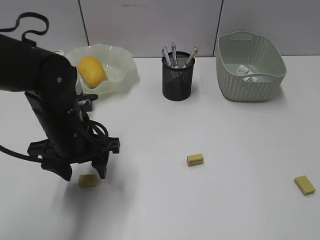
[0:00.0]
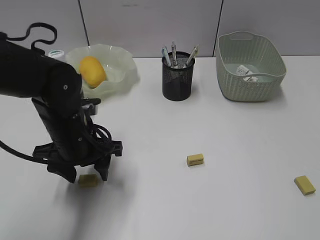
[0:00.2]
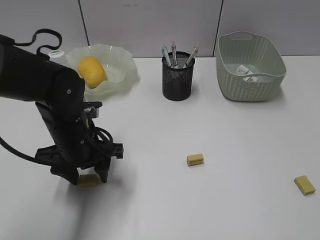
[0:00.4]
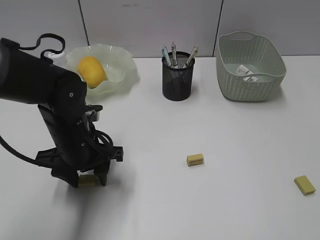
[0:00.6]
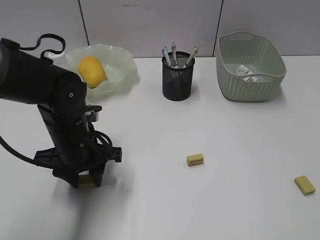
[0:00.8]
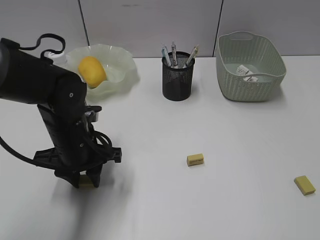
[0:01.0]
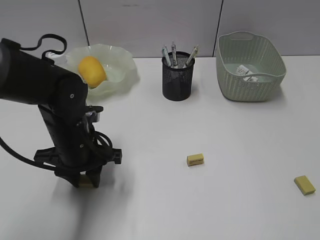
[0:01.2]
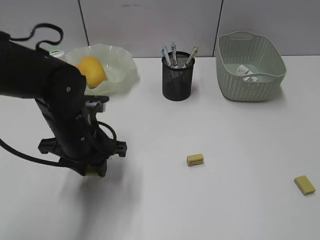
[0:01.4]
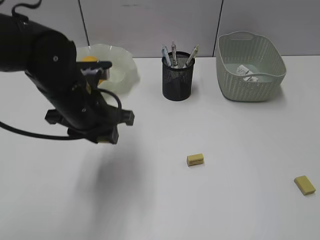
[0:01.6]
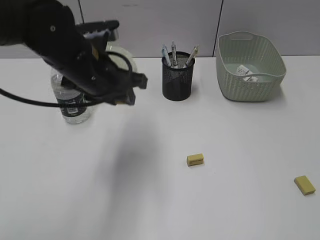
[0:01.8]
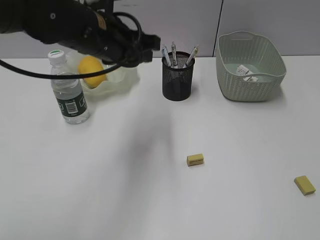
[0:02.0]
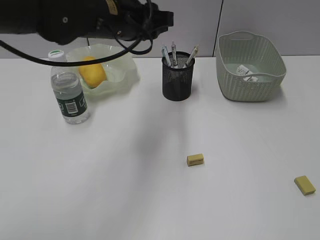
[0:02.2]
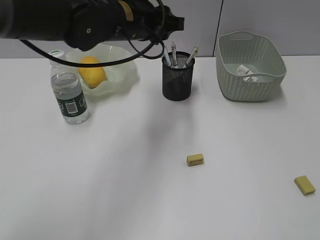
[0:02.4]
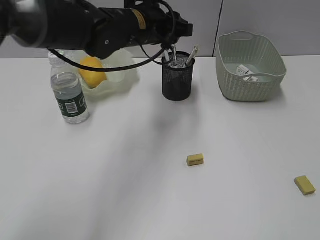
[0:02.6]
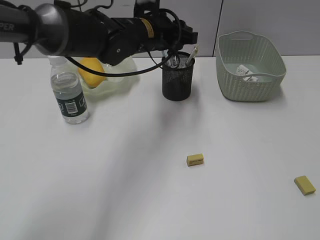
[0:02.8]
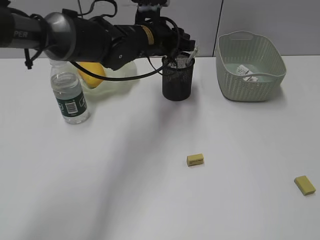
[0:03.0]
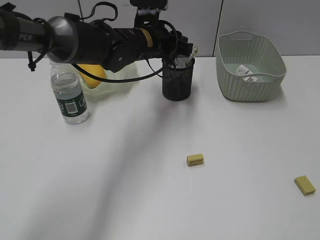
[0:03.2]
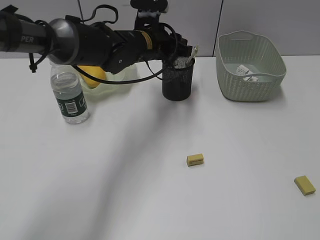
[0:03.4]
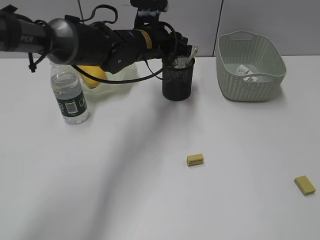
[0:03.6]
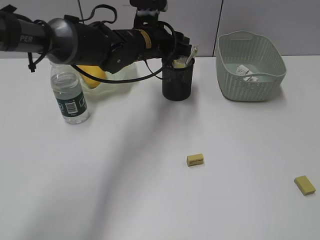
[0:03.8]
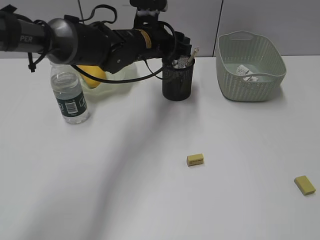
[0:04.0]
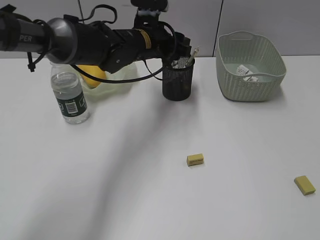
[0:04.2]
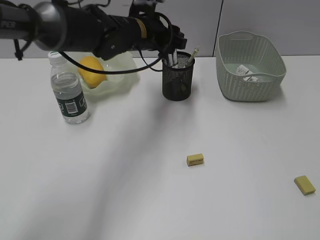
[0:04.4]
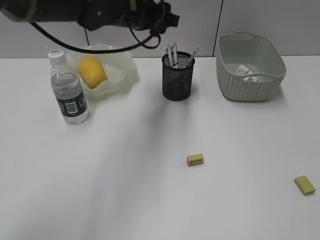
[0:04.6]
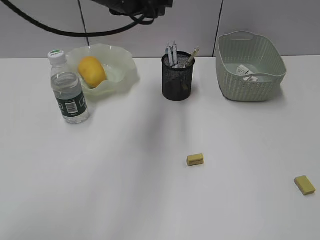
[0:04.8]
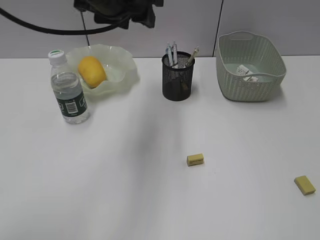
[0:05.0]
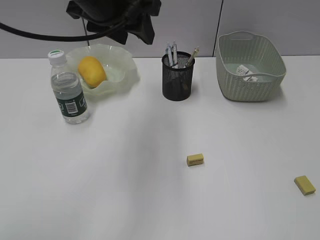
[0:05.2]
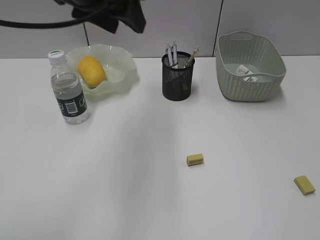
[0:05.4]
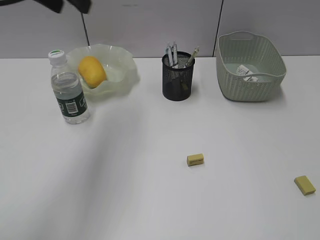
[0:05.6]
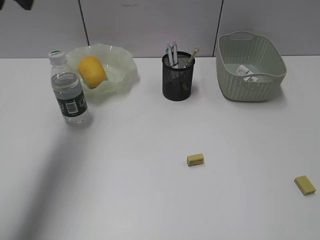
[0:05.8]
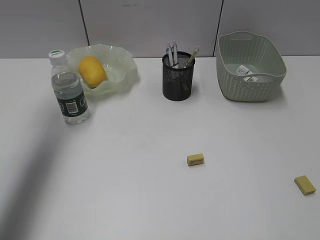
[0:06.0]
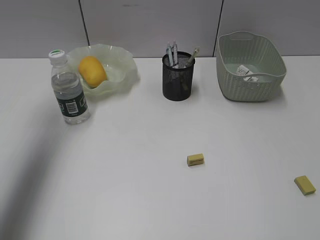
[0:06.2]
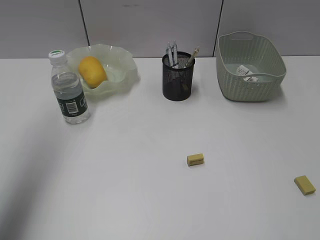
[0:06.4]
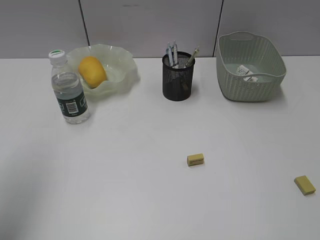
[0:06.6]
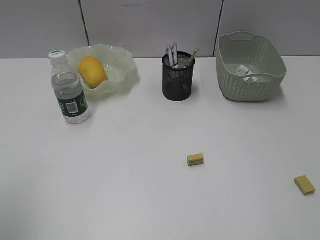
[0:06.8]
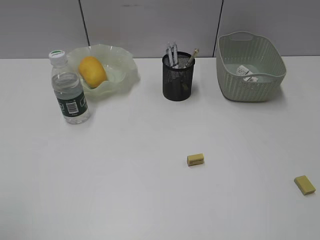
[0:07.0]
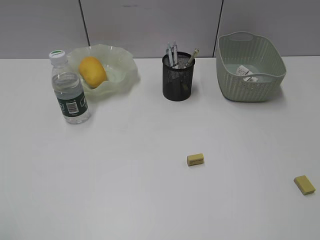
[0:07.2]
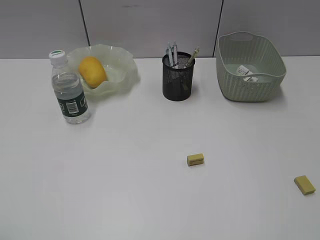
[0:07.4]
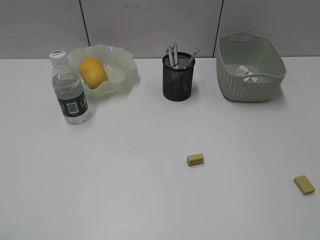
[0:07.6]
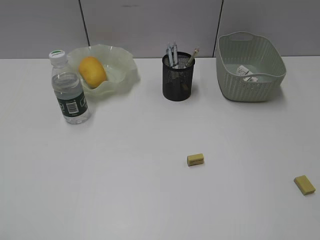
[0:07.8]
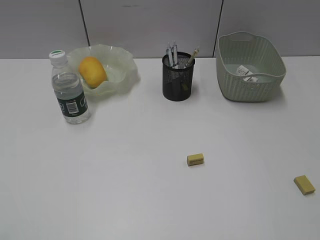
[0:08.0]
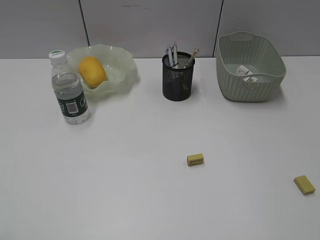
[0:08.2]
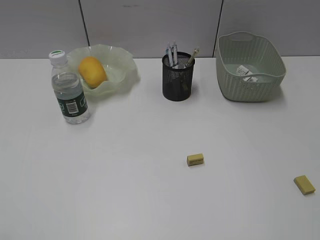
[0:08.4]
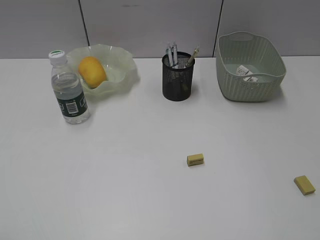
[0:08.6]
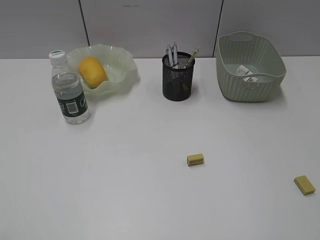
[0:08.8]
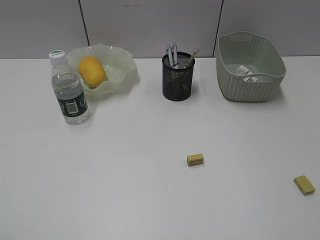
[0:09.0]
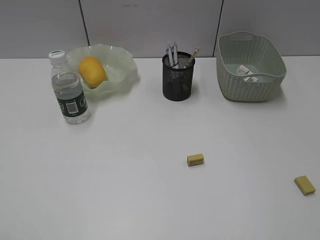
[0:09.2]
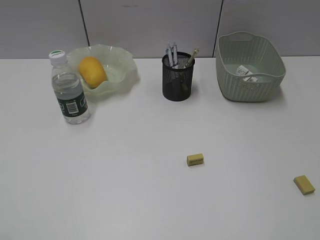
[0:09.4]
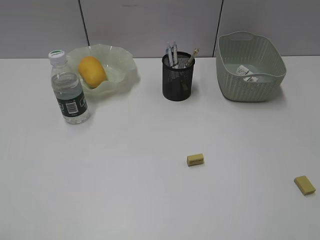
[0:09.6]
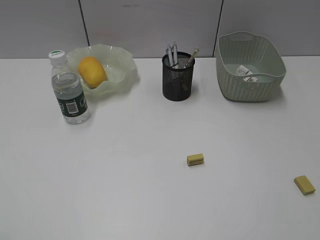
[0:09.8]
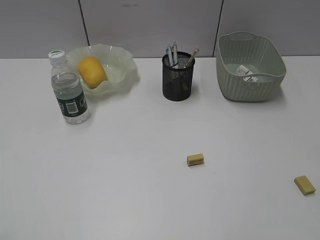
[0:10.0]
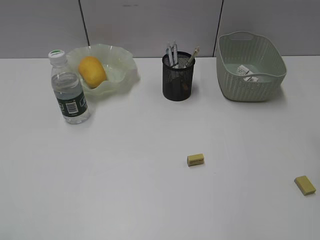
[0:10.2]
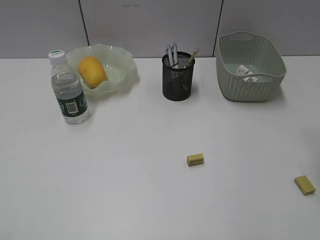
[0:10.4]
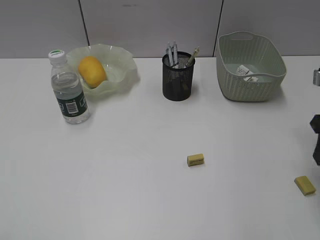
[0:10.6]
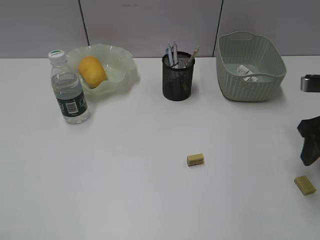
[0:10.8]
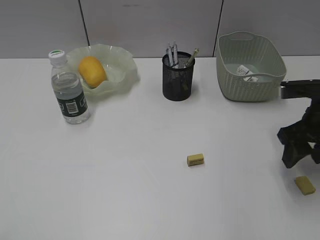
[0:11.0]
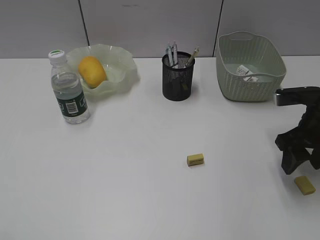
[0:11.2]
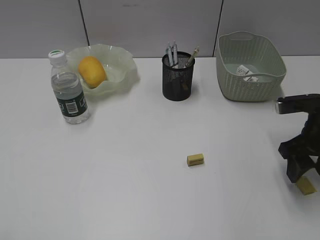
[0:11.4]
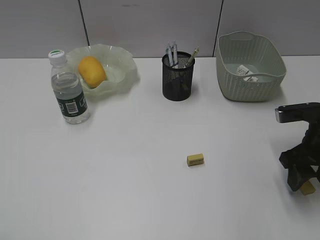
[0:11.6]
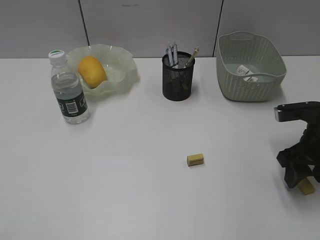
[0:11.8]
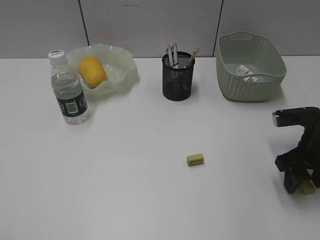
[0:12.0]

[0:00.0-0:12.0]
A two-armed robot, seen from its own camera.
Step, 0:01.2 to 0:04.2: Place the eraser in pen holder with left gripper.
0:00.0 to 0:01.6: The left gripper closes its fingers.
0:01.6 to 0:03.0: The left gripper goes about 15 cm forward and to the right.
0:03.0 to 0:04.4: The grippers make only small movements.
0:04.4 to 0:06.0: The left gripper travels to the left and upward by some 30 cm.
0:06.0 to 0:07.6: The left gripper goes some 35 cm backward.
0:07.6 to 0:09.0: The two grippers keep their place.
0:10.4 to 0:12.0: The right gripper heads downward, covering approximately 15 cm.

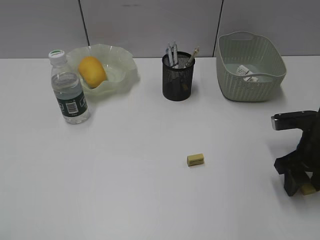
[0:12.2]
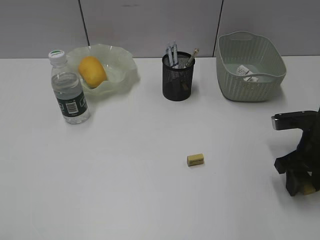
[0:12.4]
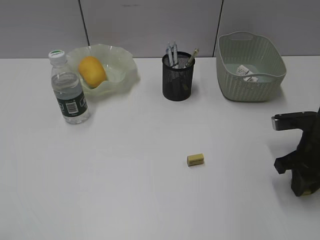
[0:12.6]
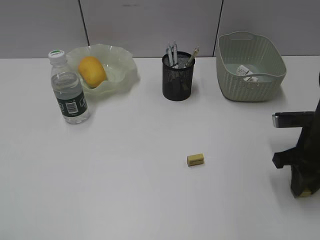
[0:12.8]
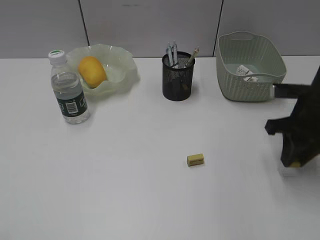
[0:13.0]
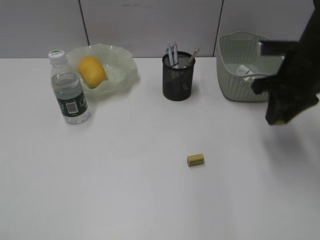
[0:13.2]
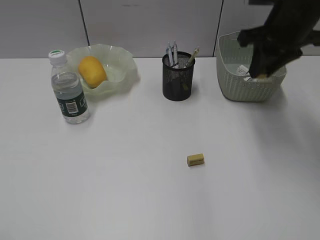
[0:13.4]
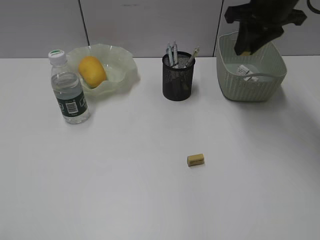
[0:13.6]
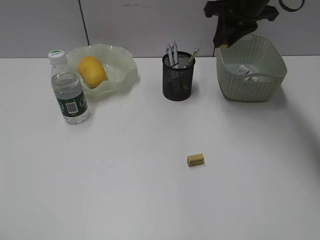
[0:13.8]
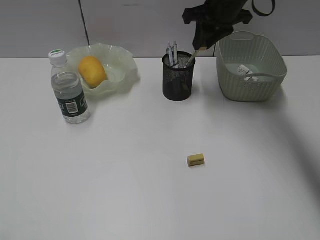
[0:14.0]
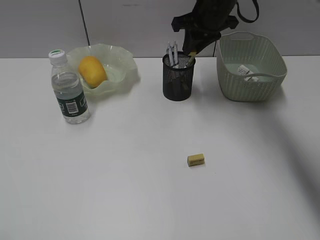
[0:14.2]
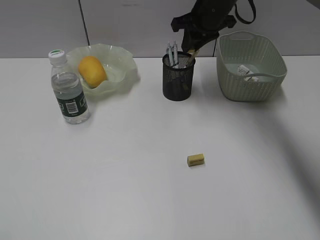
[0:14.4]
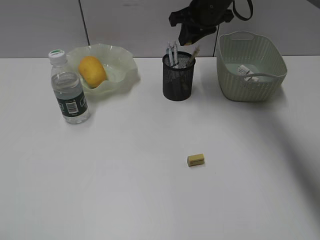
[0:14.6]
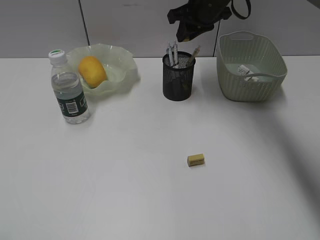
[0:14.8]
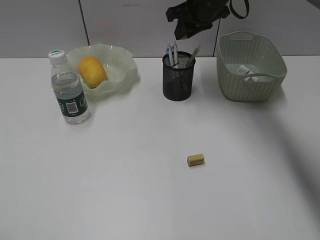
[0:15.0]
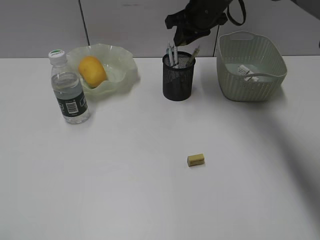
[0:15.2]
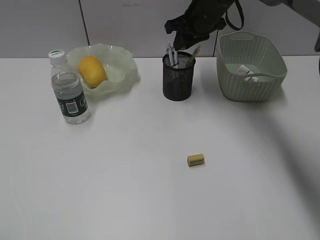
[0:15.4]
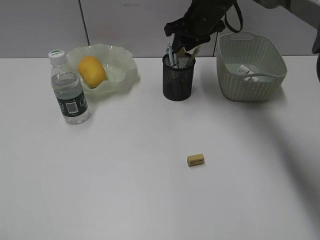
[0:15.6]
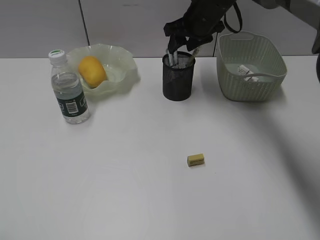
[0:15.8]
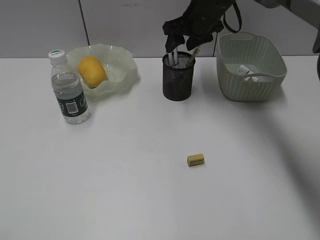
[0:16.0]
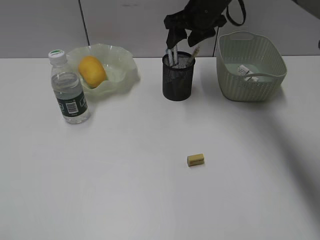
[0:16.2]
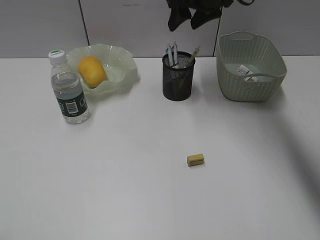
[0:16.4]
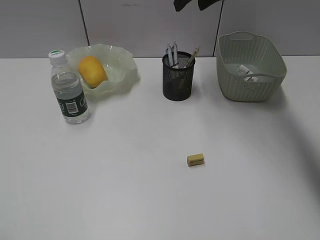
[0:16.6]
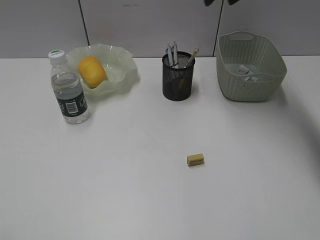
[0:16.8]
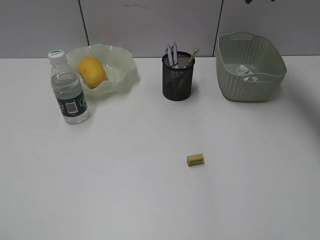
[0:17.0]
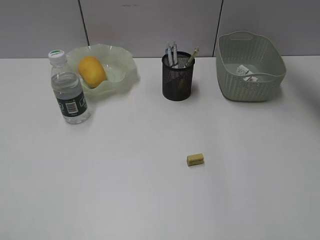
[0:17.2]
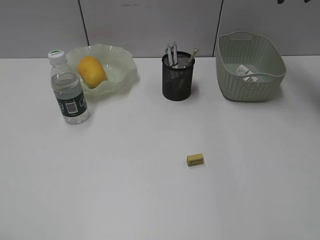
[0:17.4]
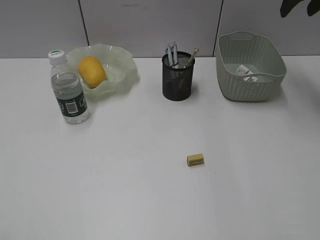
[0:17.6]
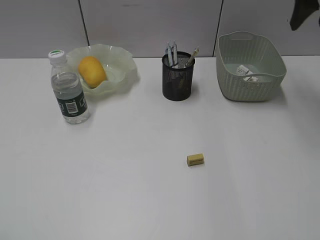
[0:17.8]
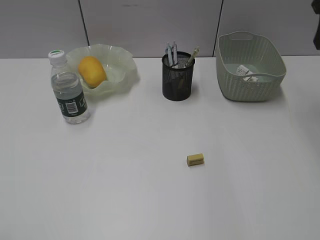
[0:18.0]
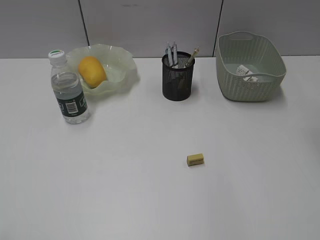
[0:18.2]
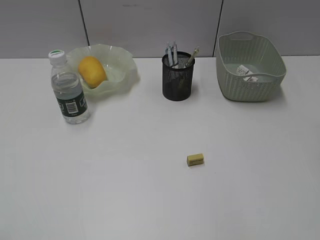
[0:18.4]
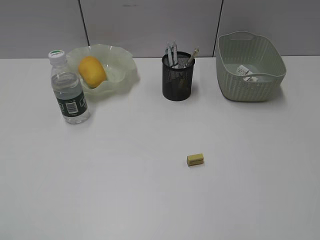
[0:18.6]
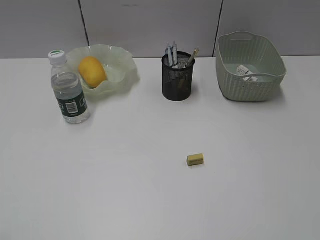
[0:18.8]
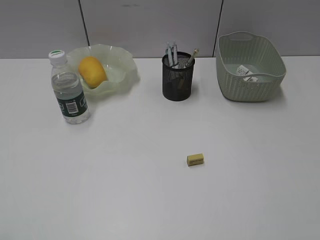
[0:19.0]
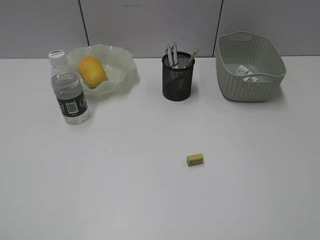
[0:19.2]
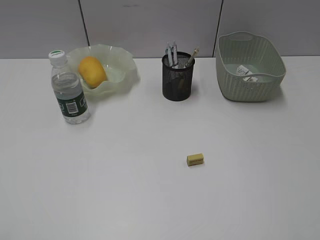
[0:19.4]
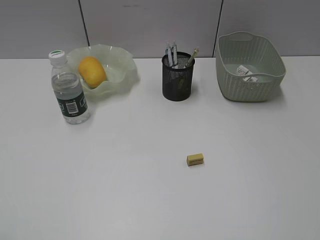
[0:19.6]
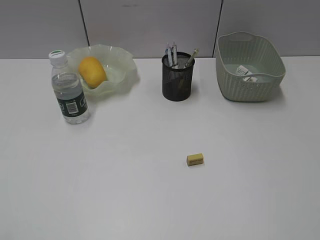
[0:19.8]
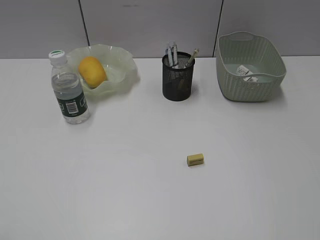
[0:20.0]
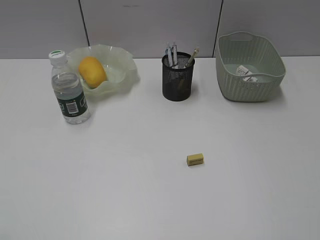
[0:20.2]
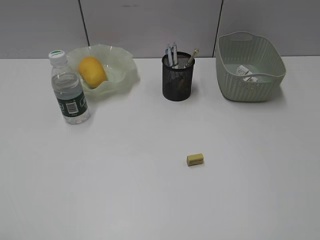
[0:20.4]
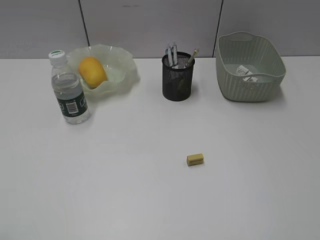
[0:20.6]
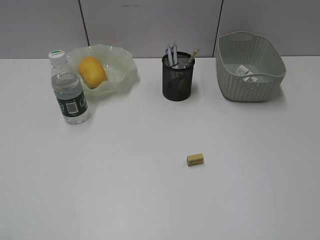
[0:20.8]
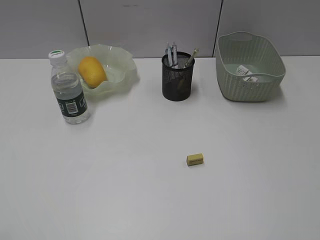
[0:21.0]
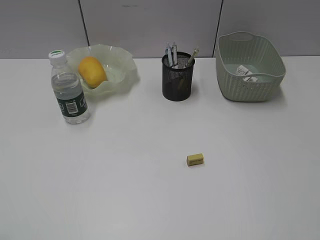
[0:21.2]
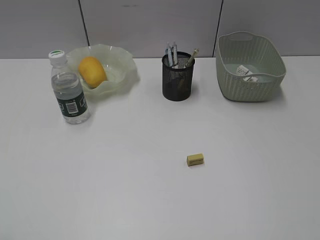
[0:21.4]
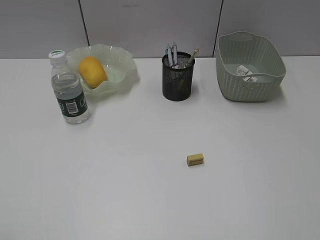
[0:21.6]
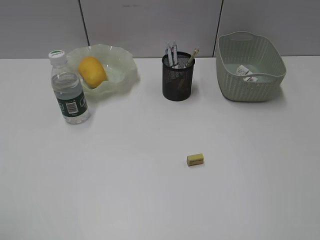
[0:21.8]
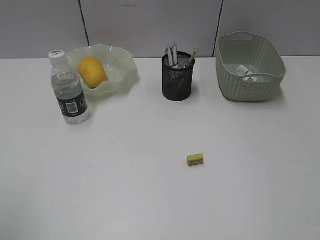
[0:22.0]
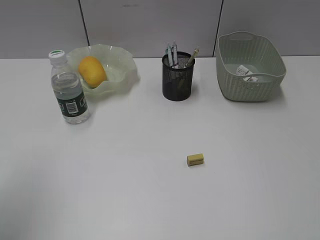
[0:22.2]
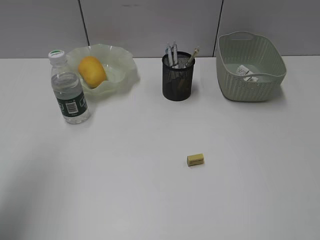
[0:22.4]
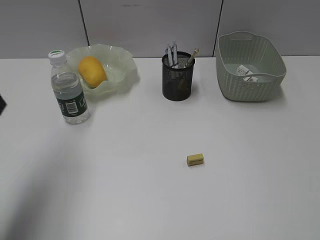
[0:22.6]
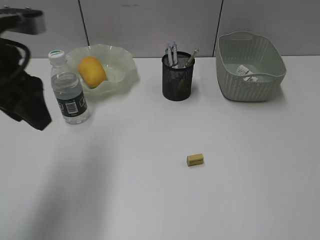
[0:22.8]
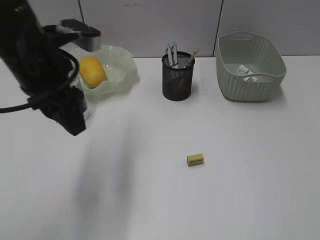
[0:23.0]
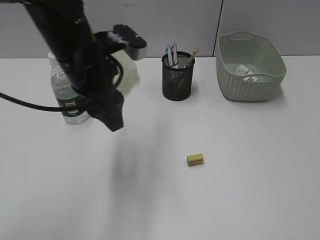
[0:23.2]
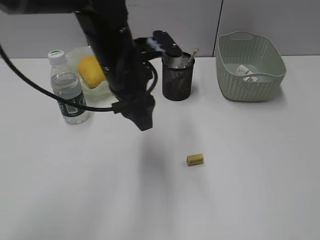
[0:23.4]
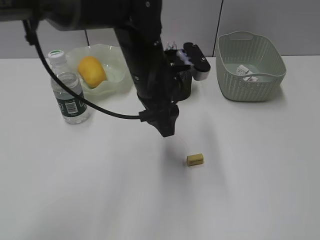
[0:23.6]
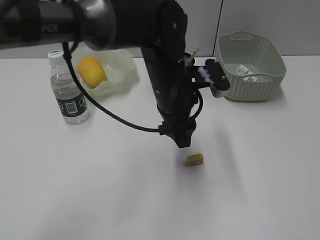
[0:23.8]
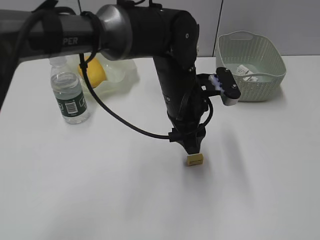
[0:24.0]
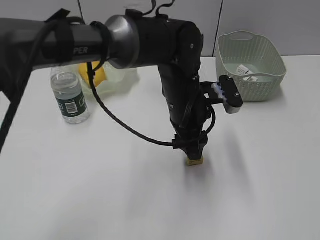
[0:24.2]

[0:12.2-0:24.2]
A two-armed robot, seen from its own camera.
Step, 0:12.8 to 0:15.8: Place the eraser in pen holder with right gripper.
0:12.2 to 0:13.8: The right gripper is displaced forward, upward and to the left by about 25 cm, and closes.
0:13.8 to 0:15.2: The right gripper heads to the left, covering approximately 5 cm.
0:15.2 to 0:16.6: The right gripper shifts some 10 cm upward, and opens up.
0:16.6 to 0:18.2: The right gripper goes roughly 25 cm to the right and backward.
0:21.2 to 0:22.6: The left gripper goes roughly 25 cm forward.
0:22.6 to 0:24.2: The left gripper moves to the right and downward, about 35 cm.
